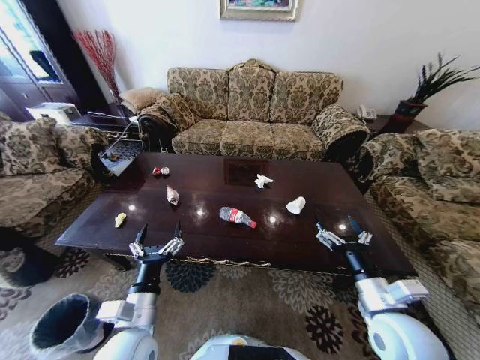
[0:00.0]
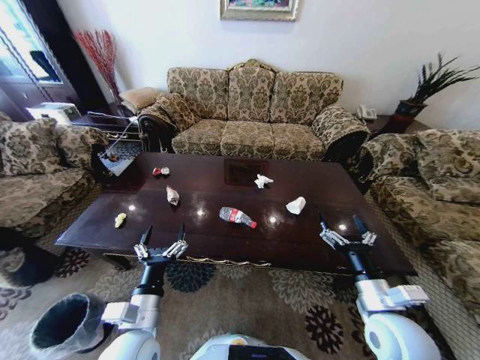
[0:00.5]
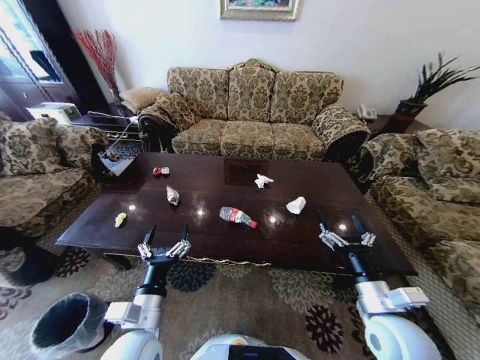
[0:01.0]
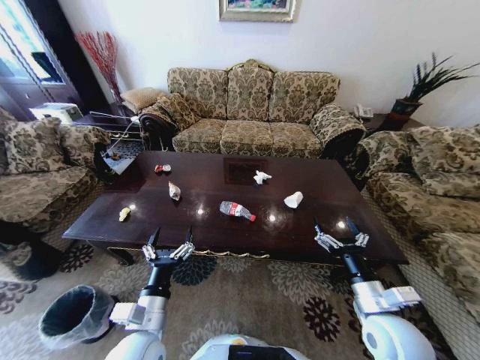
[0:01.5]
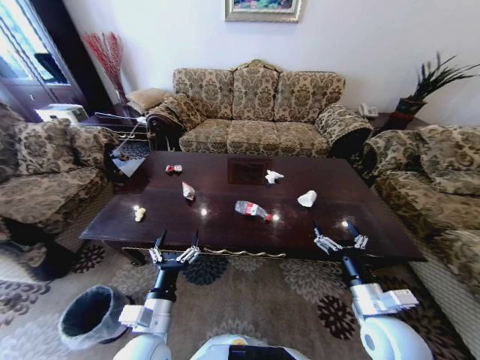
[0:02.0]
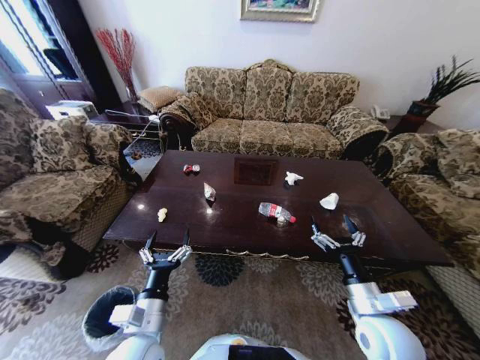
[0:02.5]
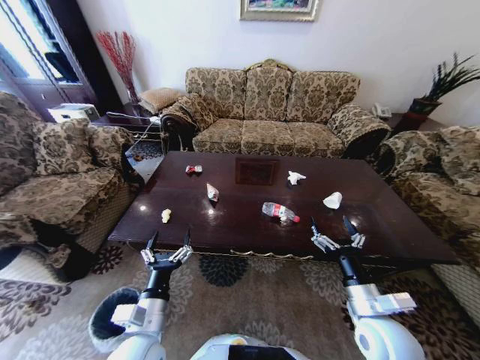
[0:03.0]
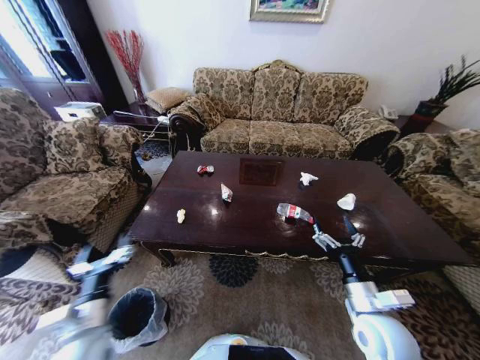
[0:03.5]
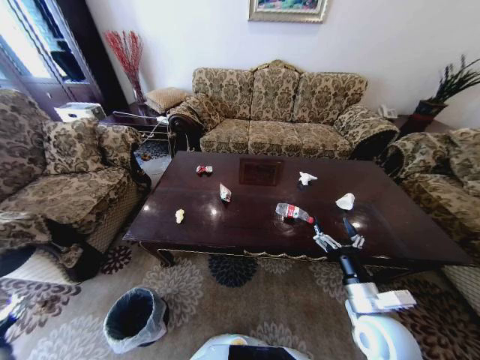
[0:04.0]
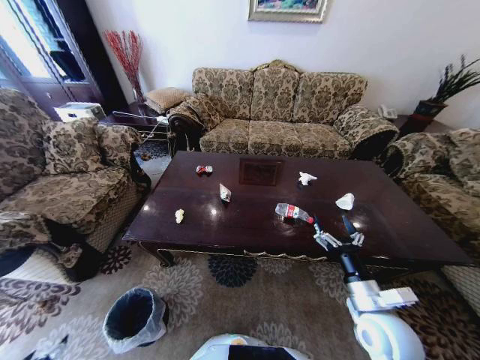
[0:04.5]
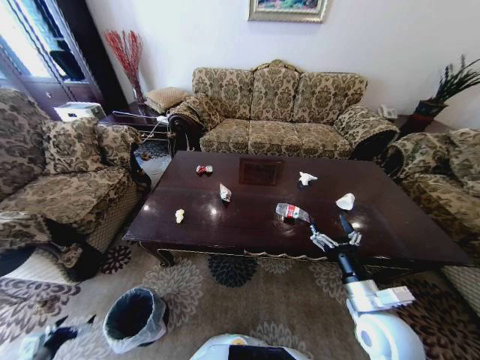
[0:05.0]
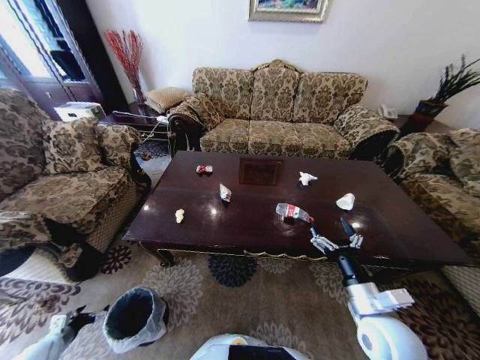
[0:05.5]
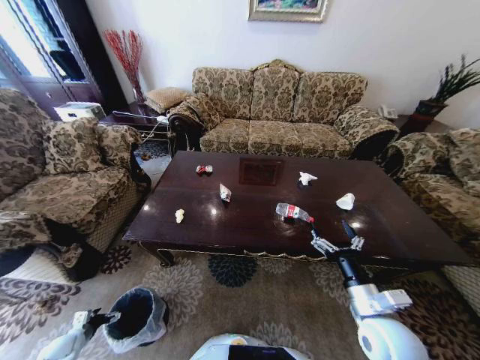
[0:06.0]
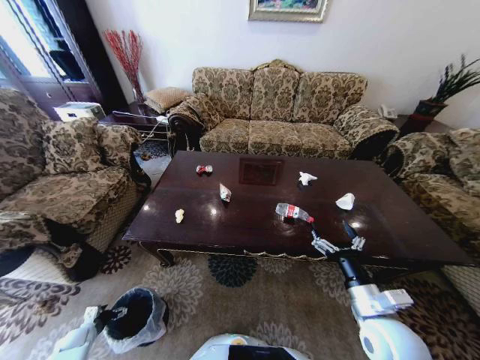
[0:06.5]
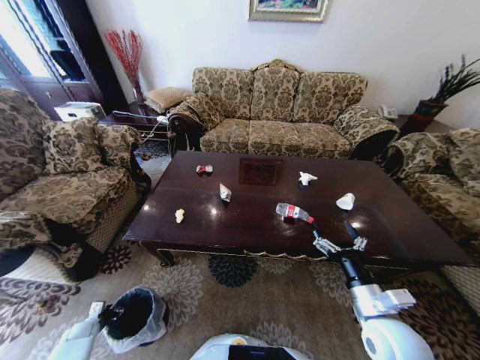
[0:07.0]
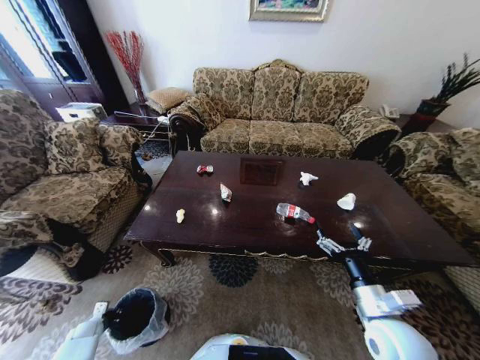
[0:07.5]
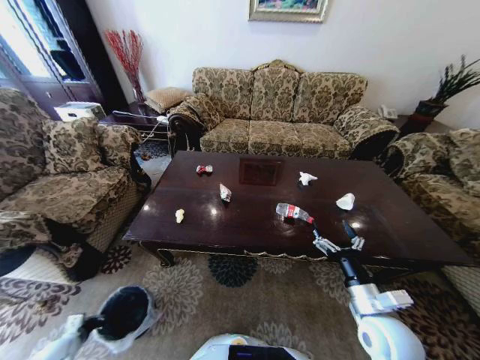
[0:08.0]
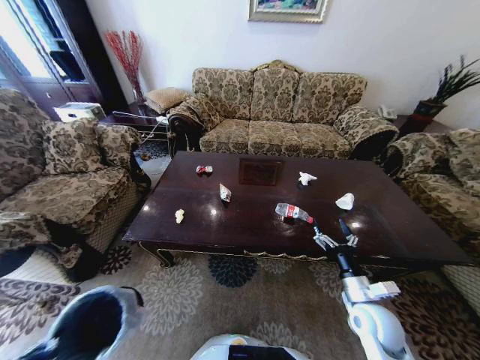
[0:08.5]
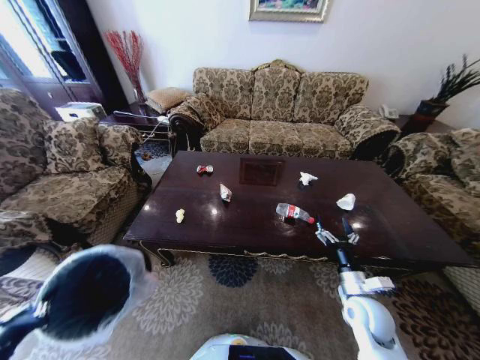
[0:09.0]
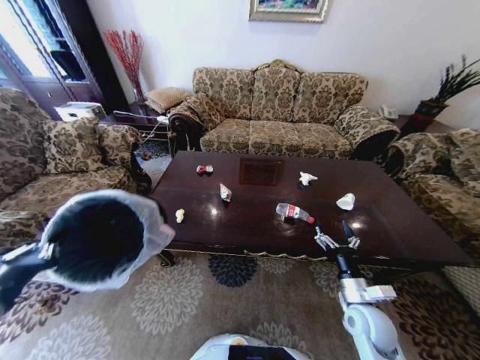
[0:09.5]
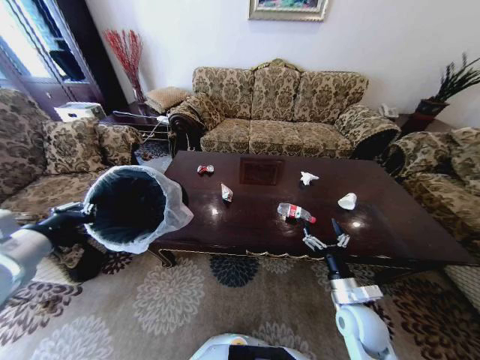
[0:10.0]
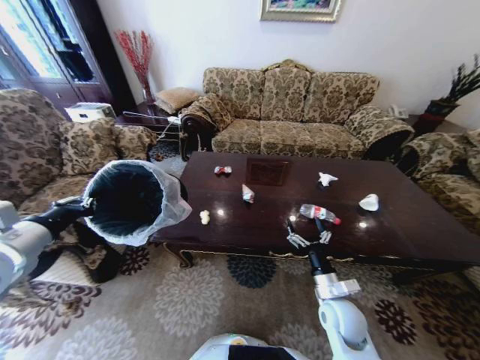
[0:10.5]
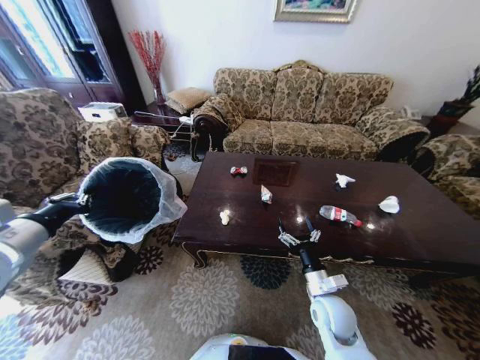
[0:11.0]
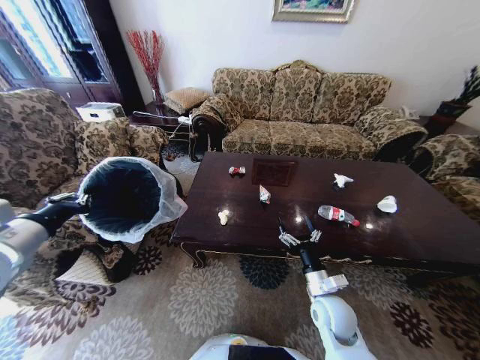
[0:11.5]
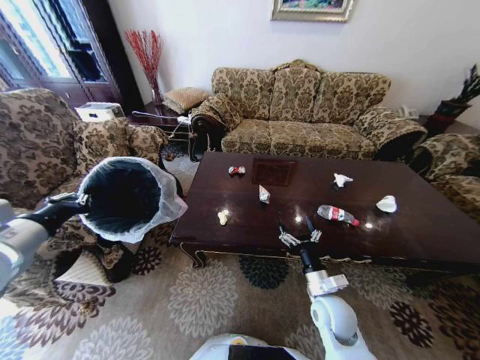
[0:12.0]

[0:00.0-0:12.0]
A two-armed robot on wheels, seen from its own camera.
Task of the whole recording: Move to the front of the table and place the trash on the table into the trash bin.
0:02.0 to 0:04.0: The left gripper goes approximately 30 cm to the left.
0:04.0 to 0:06.0: The left gripper is displaced downward by roughly 20 cm.
0:06.0 to 0:08.0: The left gripper closes its fingers.
0:08.0 to 0:10.0: The left gripper is displaced upward by some 50 cm. Meanwhile the right gripper shifts some 5 cm downward.
0:10.0 to 0:12.0: The right gripper travels to the left by approximately 5 cm.

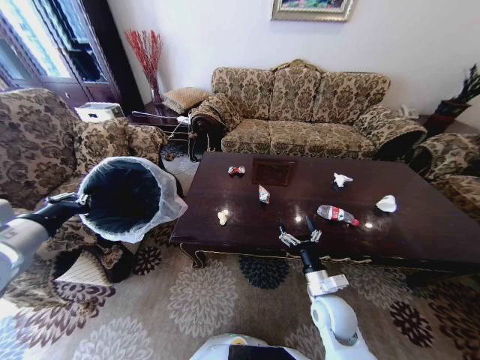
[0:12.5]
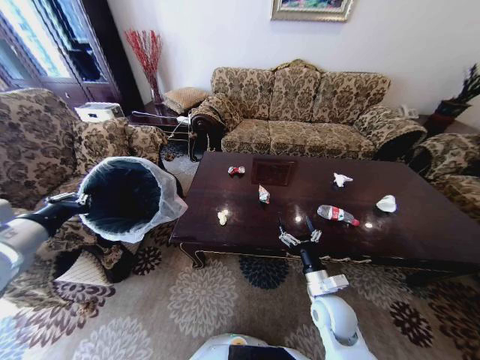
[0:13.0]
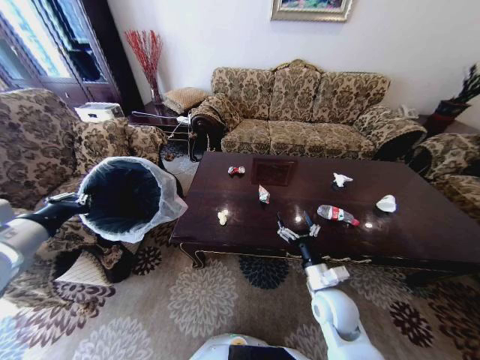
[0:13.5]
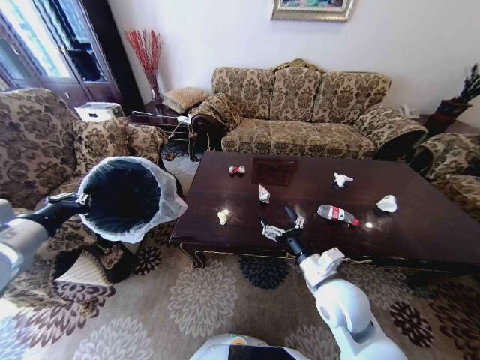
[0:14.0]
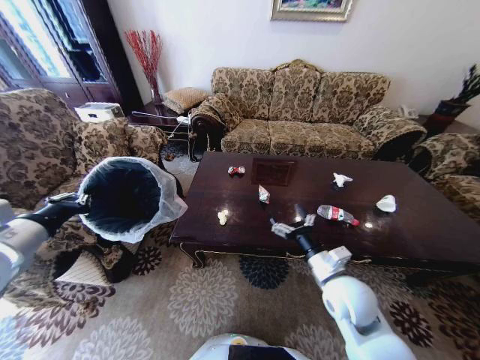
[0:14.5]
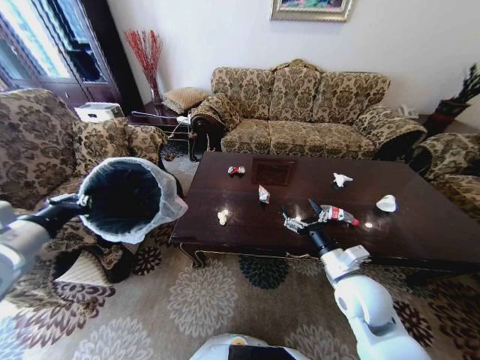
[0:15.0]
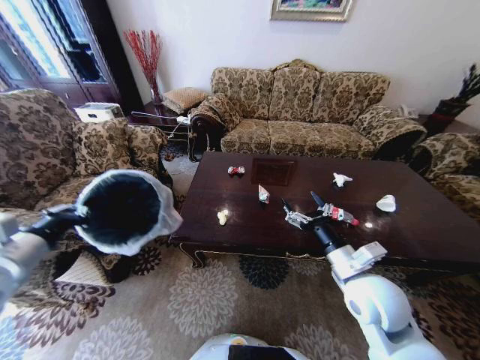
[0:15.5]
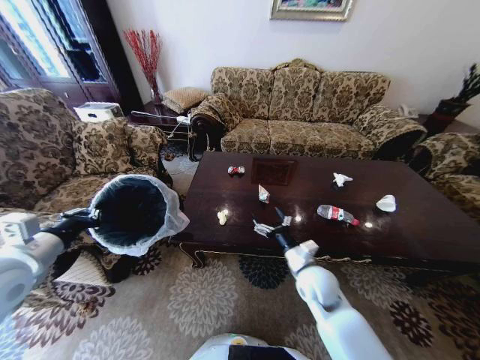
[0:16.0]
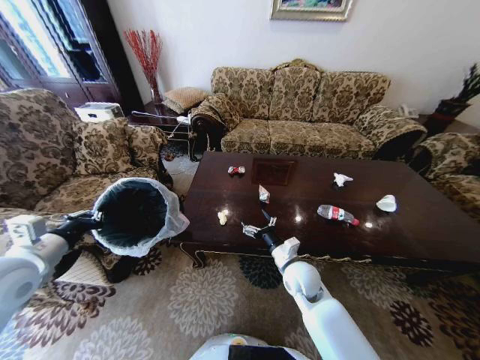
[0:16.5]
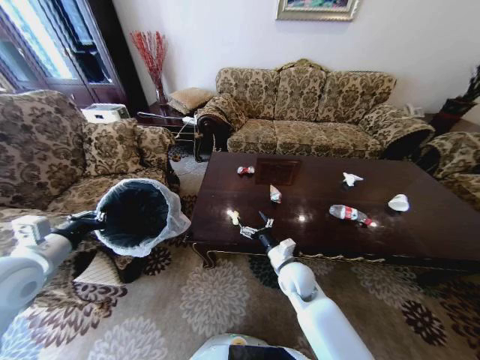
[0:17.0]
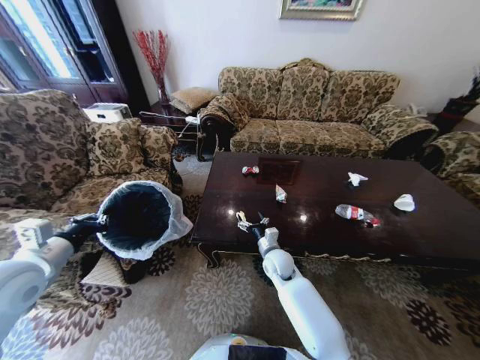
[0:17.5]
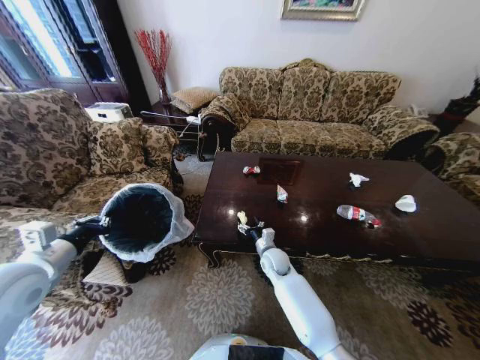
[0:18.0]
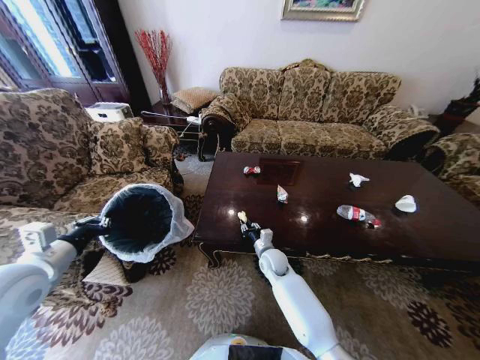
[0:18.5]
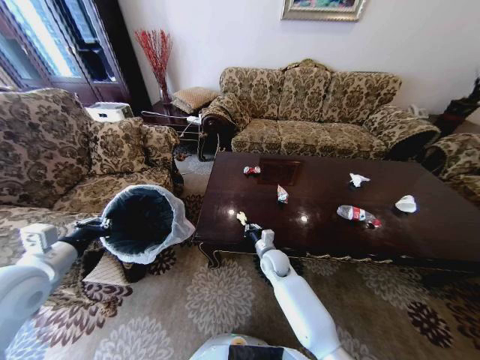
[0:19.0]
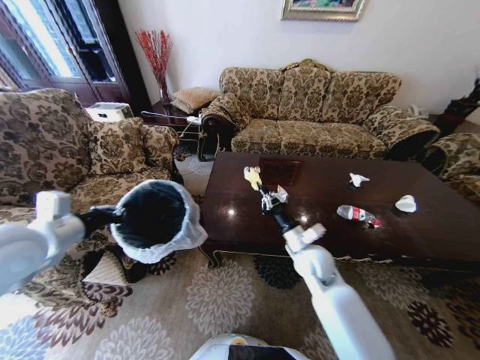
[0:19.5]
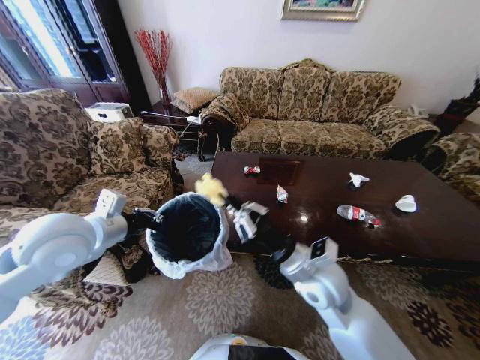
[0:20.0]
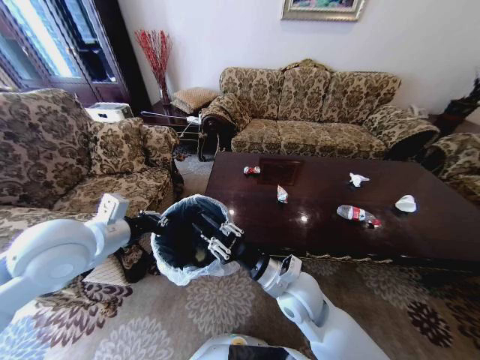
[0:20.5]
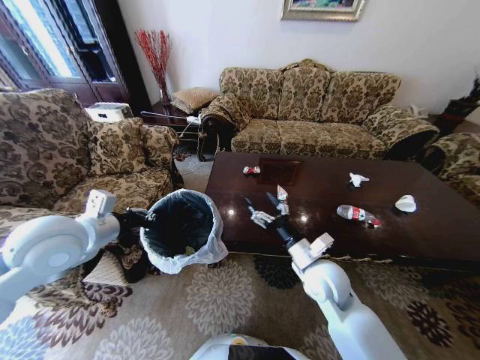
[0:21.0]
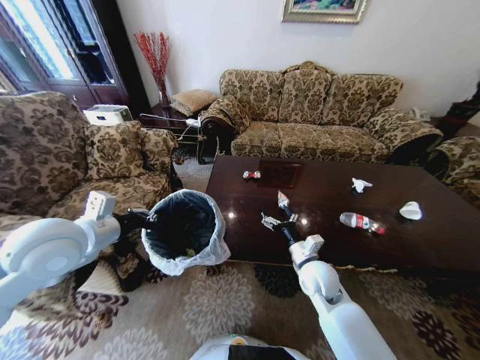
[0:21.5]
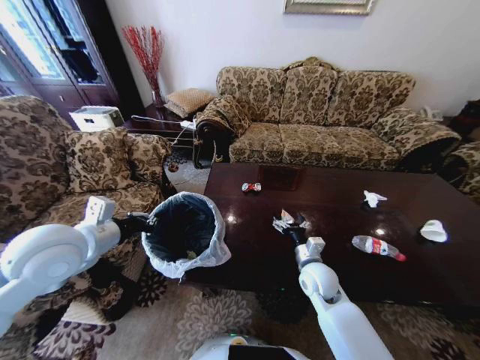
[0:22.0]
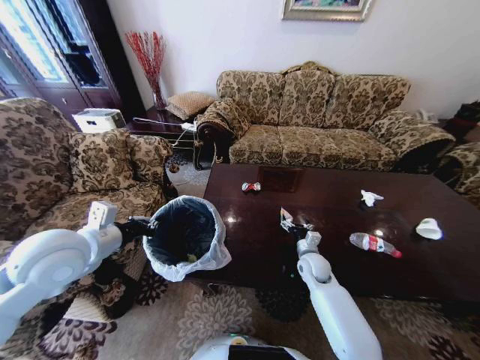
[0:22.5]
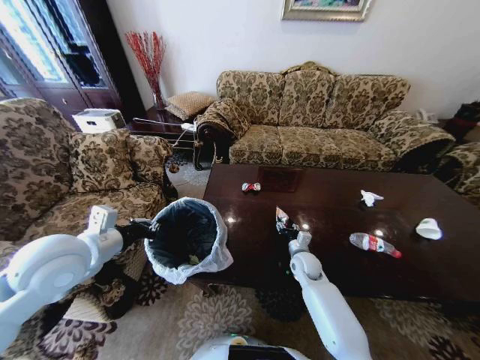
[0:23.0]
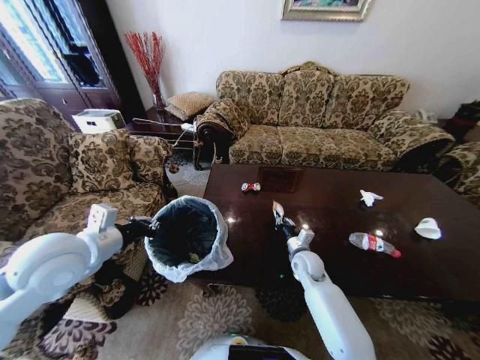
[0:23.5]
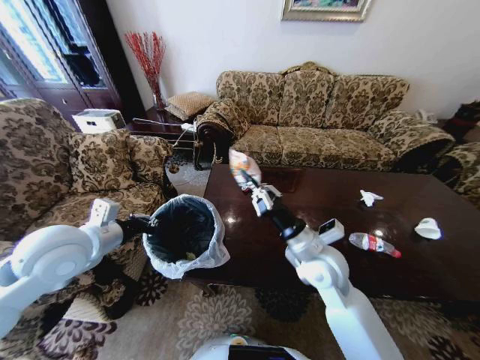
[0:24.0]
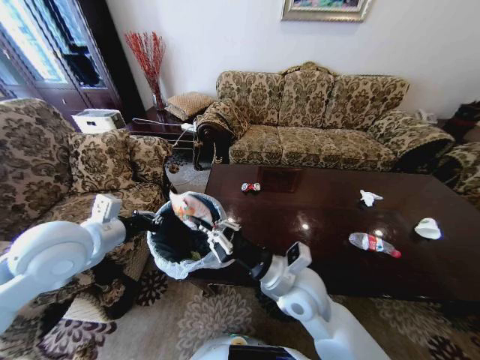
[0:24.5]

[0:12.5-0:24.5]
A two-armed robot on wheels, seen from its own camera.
Task of the whole recording: Move to the front of the table and place the trash on the table into the trash bin.
0:12.5 to 0:14.5: The right gripper is displaced upward by about 10 cm.
0:14.5 to 0:16.5: The right gripper shifts roughly 10 cm downward, forward and to the left.
0:16.5 to 0:18.5: The right gripper goes about 15 cm forward, downward and to the left, and closes.
0:18.5 to 0:20.5: The left gripper travels to the right and upward by some 15 cm. Meanwhile the right gripper heads upward and backward, covering about 20 cm.
0:20.5 to 0:22.5: The right gripper is displaced downward, forward and to the right by some 25 cm, and opens its fingers.
0:22.5 to 0:24.5: The right gripper heads upward, to the left and backward, covering roughly 25 cm, and closes.

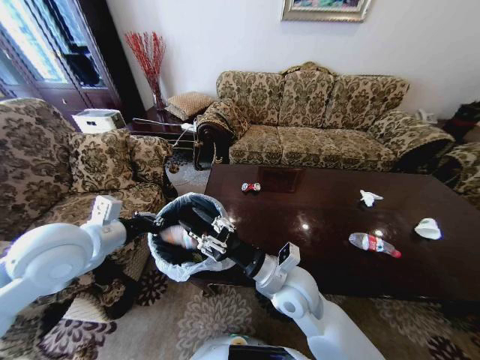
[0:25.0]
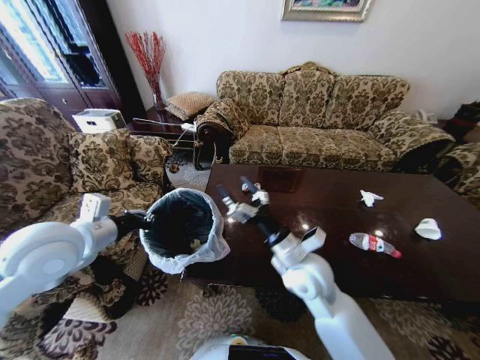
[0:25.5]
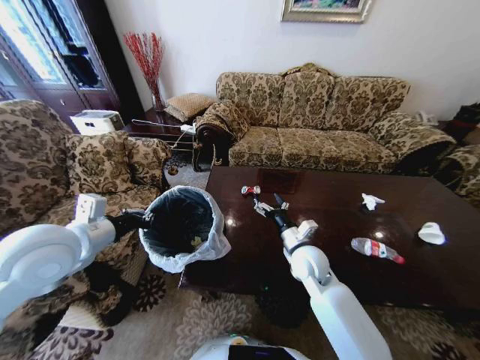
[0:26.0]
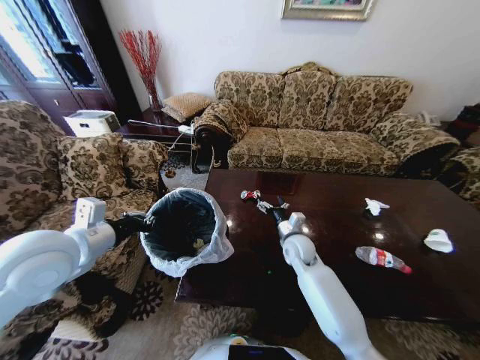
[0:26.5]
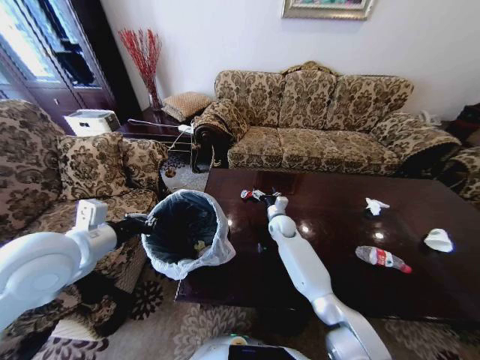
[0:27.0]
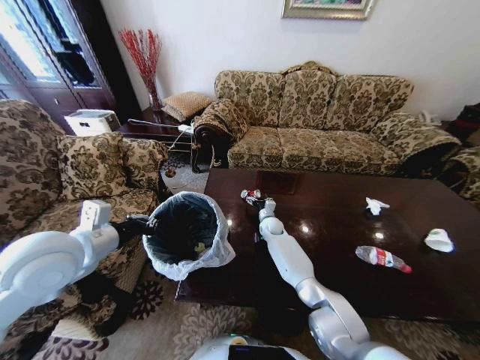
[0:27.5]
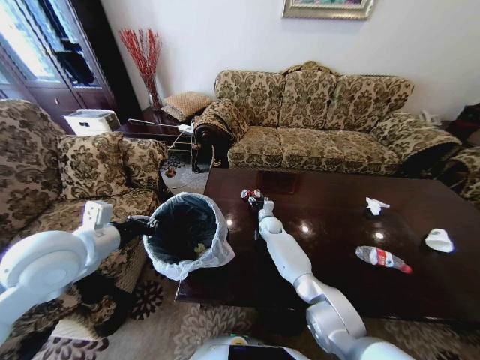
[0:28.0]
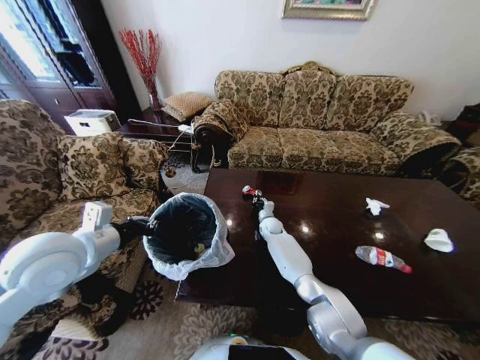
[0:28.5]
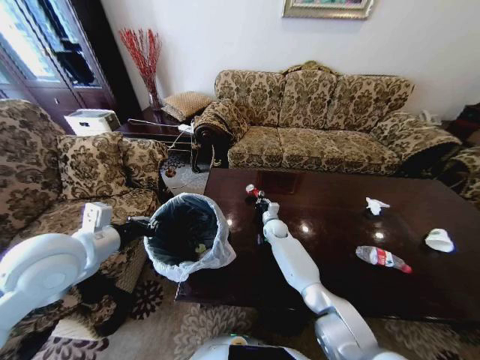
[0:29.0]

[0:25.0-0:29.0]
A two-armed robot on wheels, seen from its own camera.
Task of the whole recording: Move to the front of the table and place the trash on the table into the trash bin.
0:25.0 to 0:27.0: The right gripper shifts approximately 30 cm forward and downward, and opens its fingers.
0:27.0 to 0:29.0: The right gripper goes about 5 cm downward, and closes.
